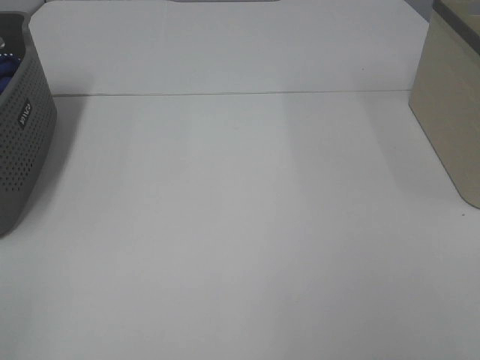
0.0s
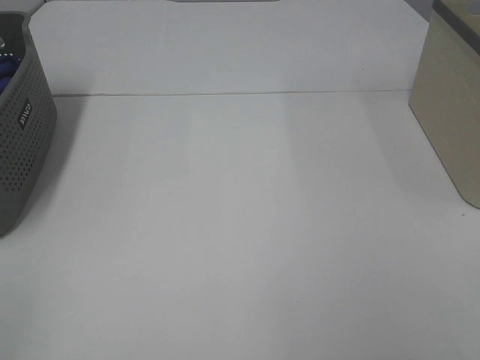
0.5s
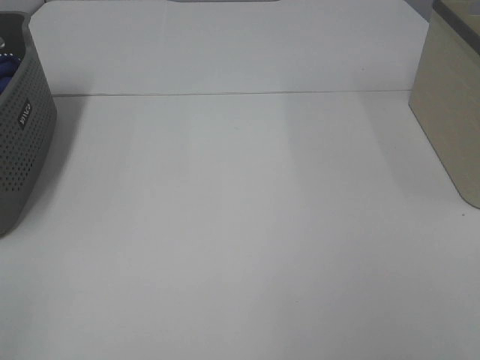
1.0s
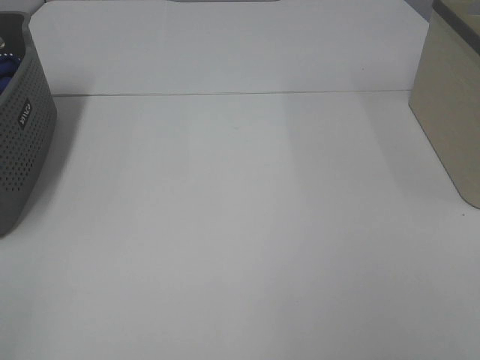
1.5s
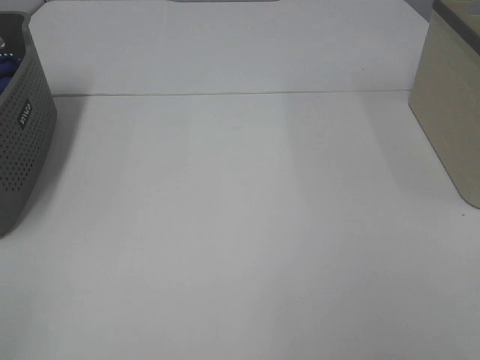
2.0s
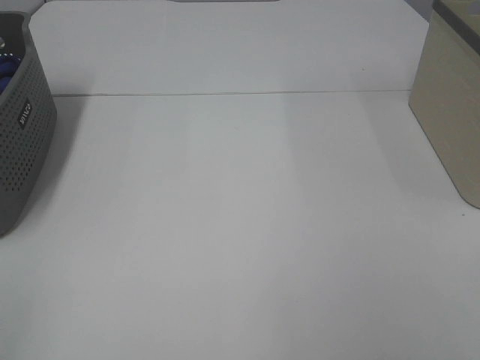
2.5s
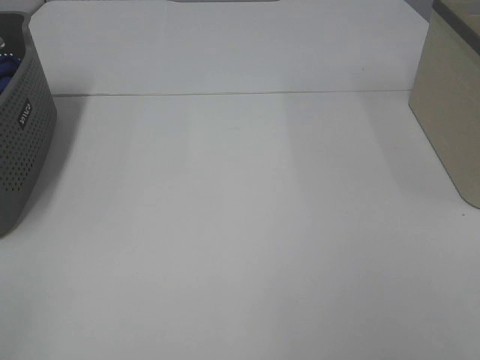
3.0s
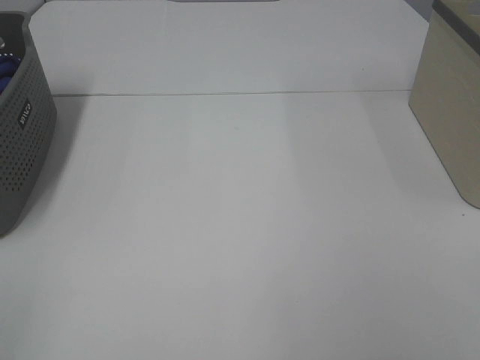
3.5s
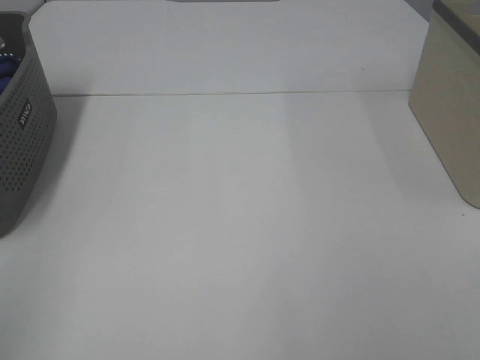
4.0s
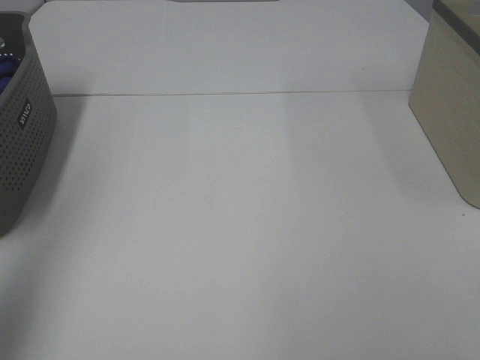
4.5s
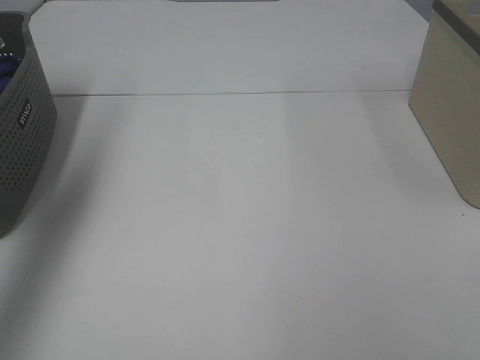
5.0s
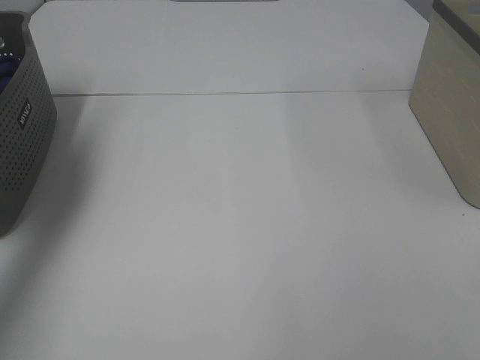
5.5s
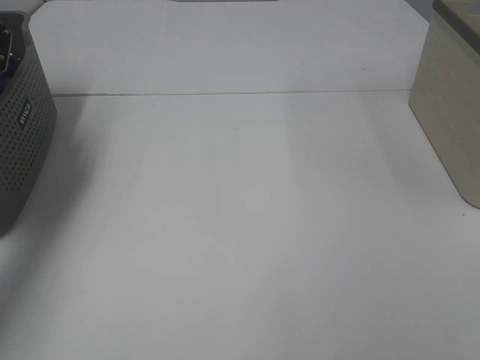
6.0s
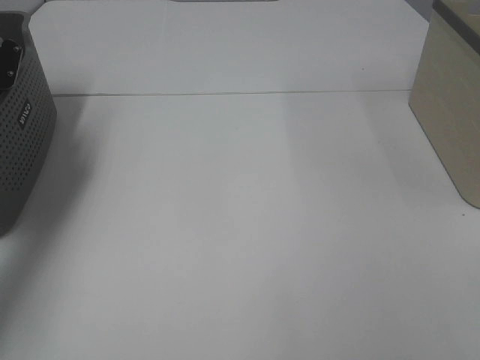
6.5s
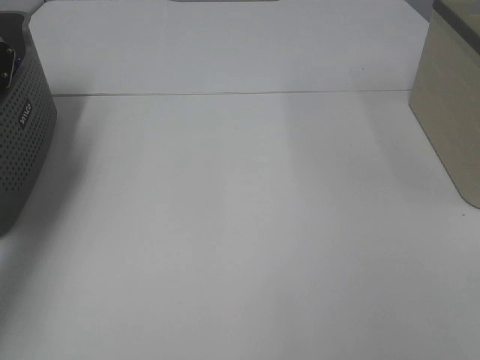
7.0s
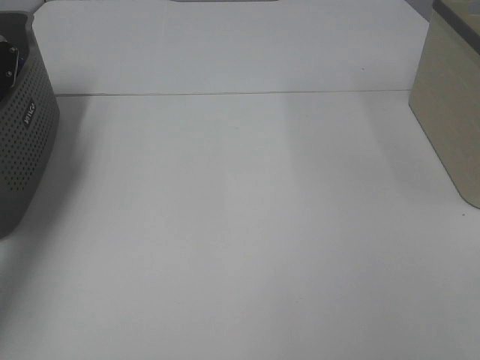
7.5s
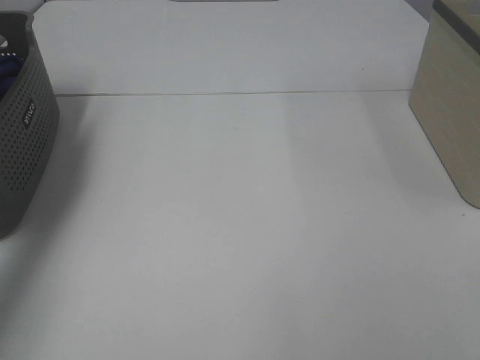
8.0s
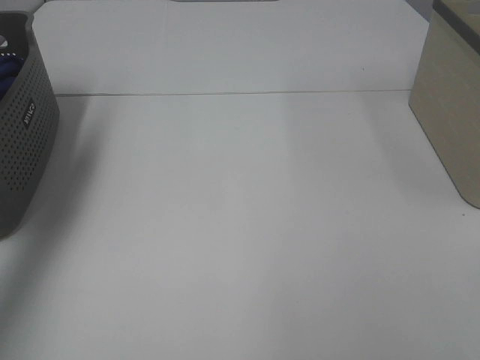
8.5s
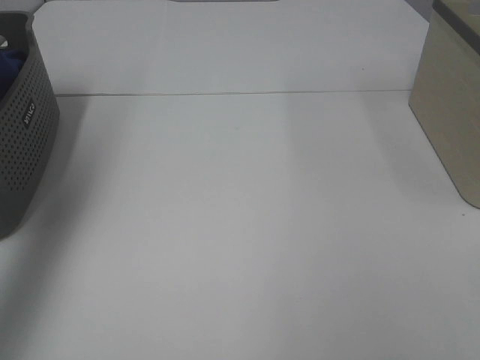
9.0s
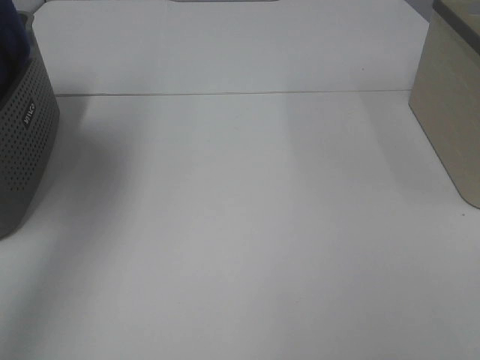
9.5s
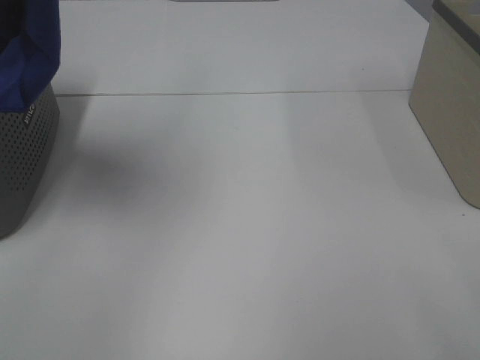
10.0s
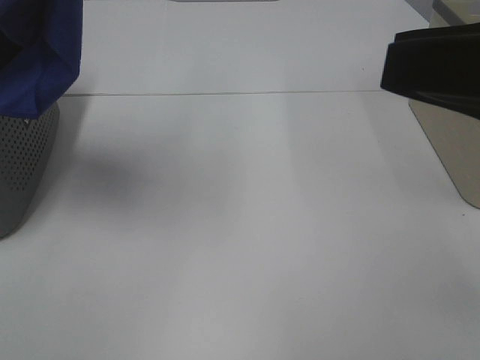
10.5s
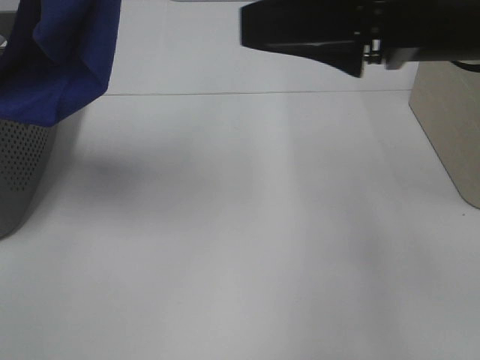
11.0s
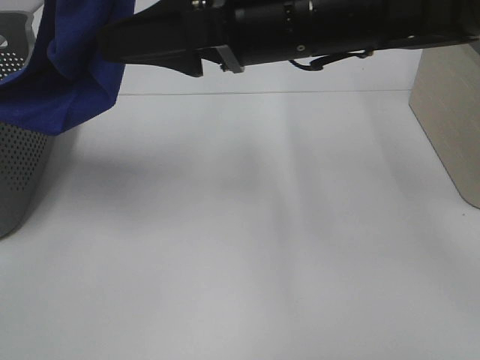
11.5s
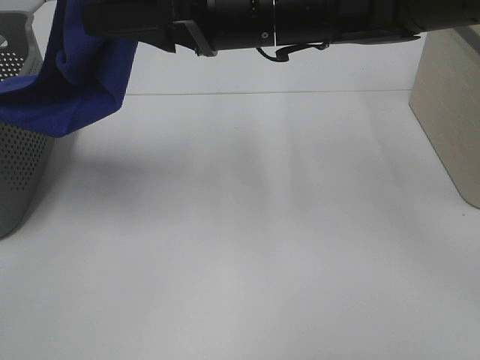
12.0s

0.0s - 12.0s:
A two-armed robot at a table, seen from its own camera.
Task of the whole recording: Remove the towel and place it.
0.0s - 2.0s: The two grippers keep their place.
4.0s - 6.0s: The left gripper is displaced forward by roughly 40 cm.
8.0s - 10.0s: The right gripper heads forward, covering approximately 5 cm. The left gripper shifts roughly 35 cm upward, backward and to the right.
10.0s - 12.0s: The right gripper goes roughly 35 cm forward and to the left, while the left gripper goes roughly 10 cm to the right, downward and forward.

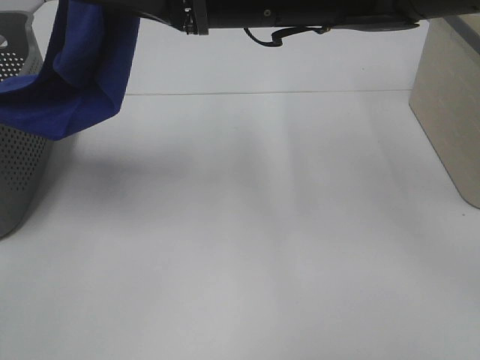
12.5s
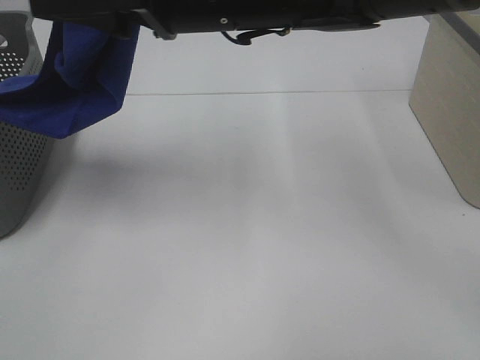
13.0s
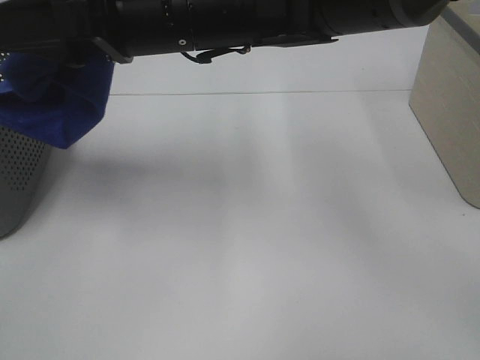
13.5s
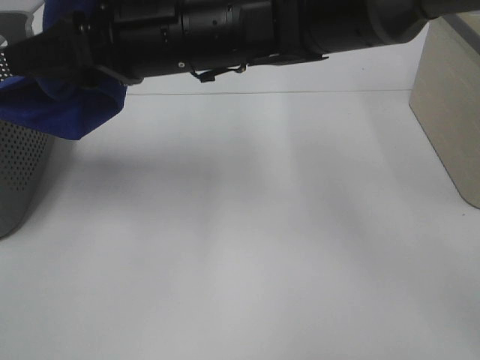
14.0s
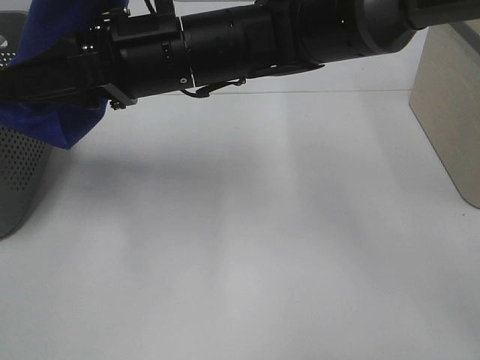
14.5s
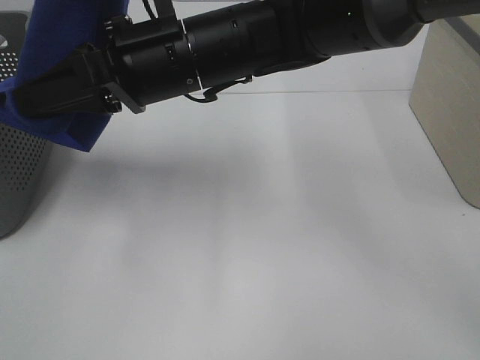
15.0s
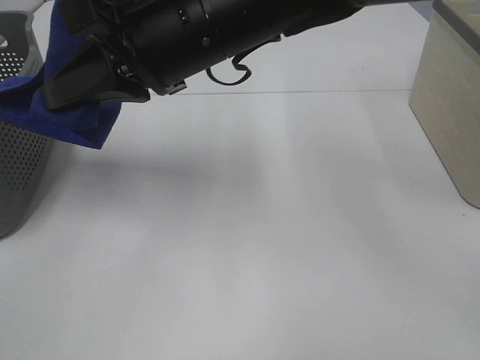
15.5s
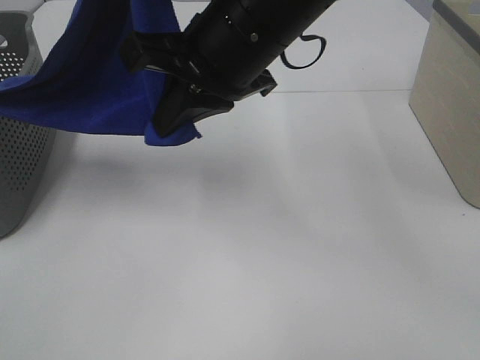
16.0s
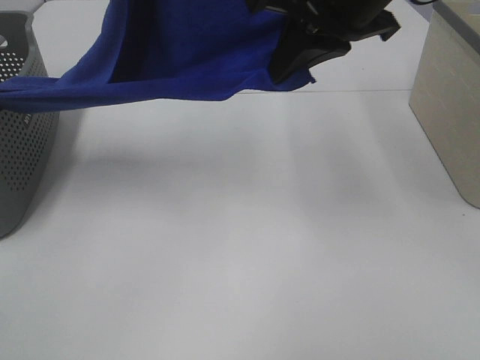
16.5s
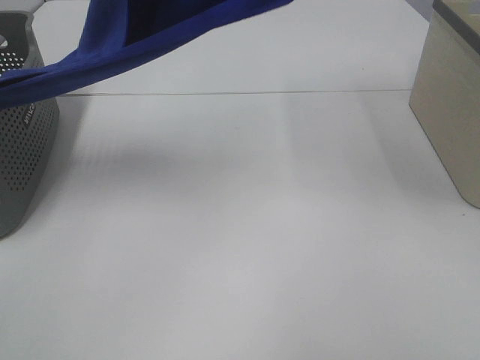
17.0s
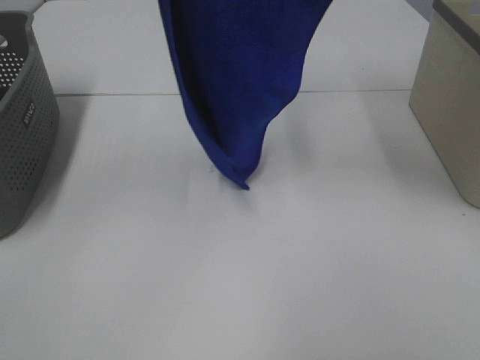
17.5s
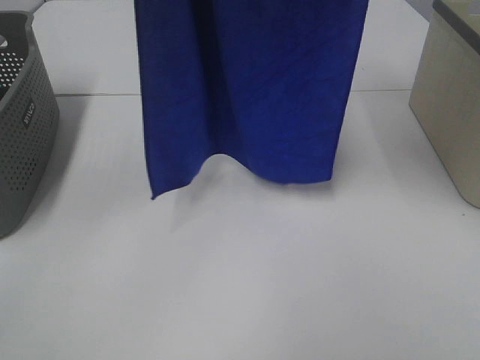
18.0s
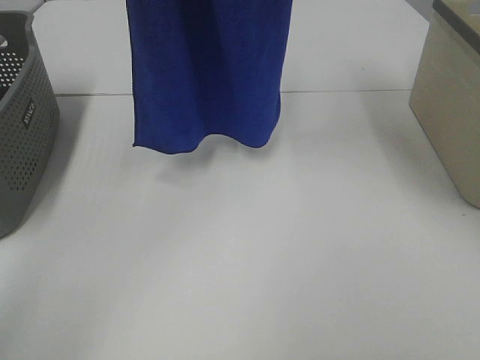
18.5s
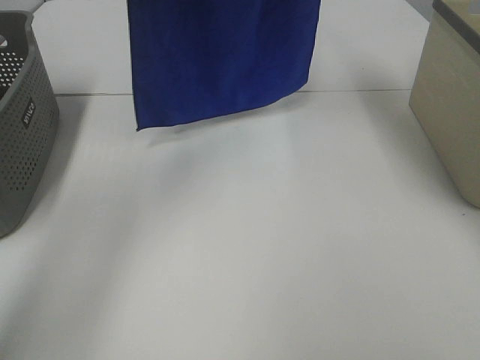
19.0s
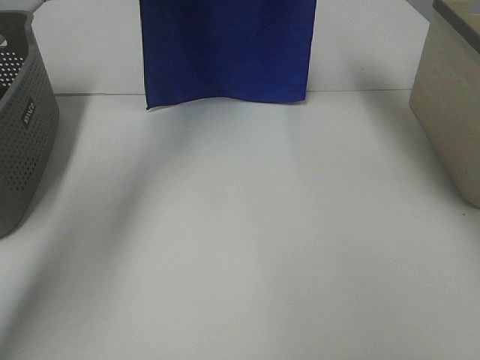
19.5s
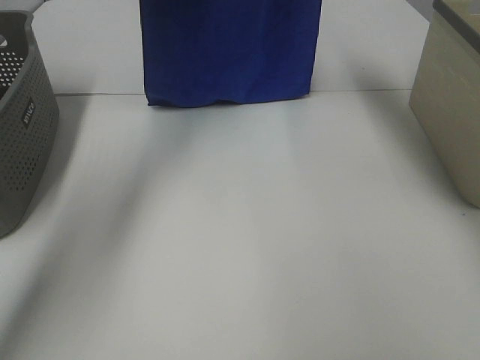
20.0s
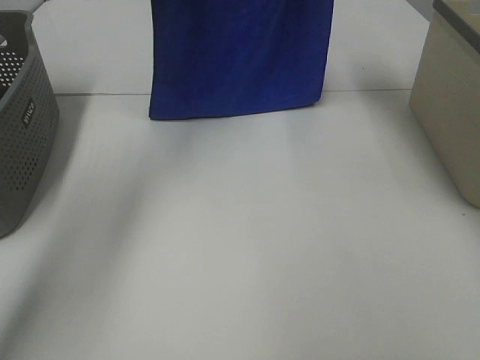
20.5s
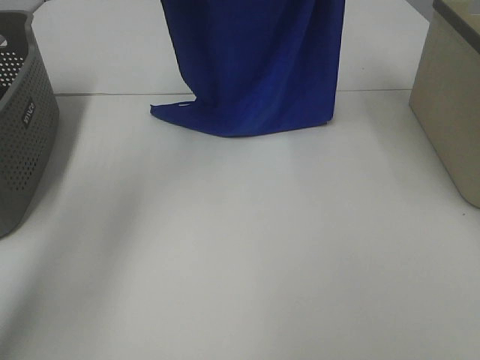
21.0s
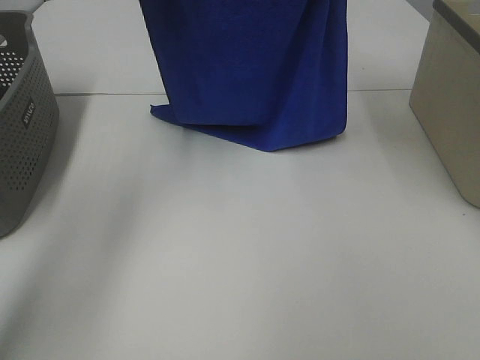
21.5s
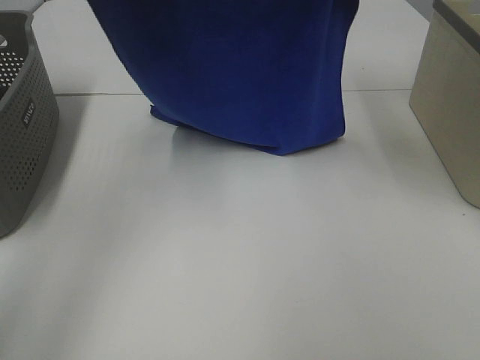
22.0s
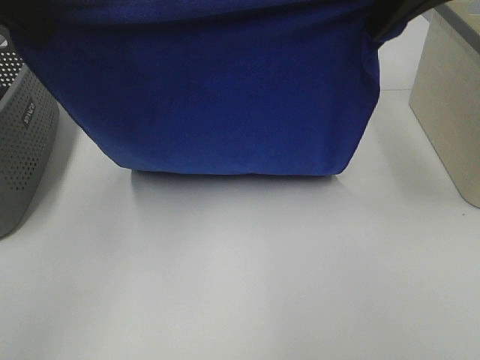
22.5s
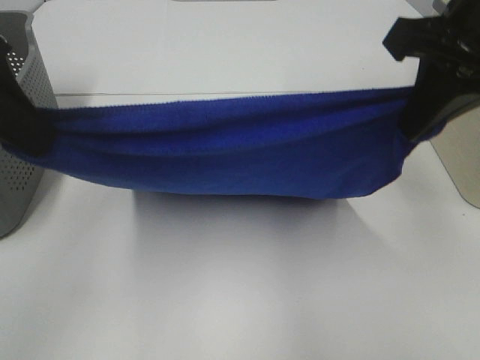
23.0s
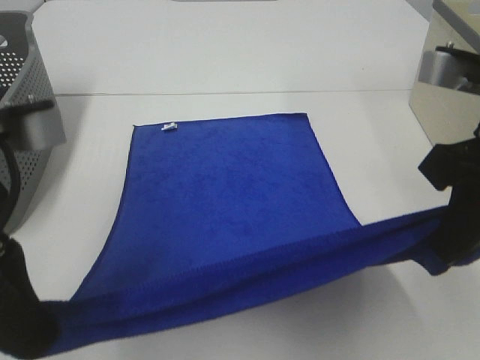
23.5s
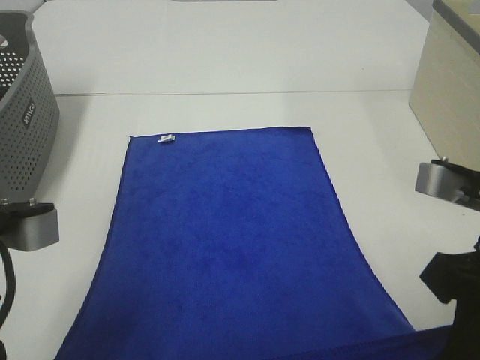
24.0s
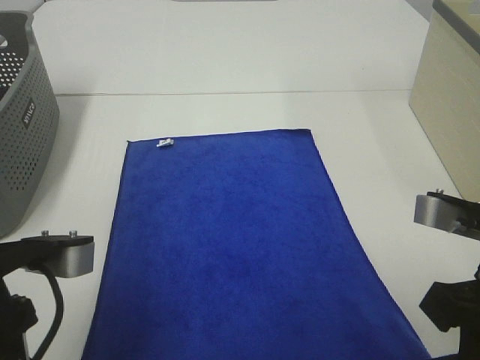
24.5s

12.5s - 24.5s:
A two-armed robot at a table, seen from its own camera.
Task of the whole recording: Remove the towel and place it.
Step, 12.5s - 14.5s: Right hand: grab a corner of the blue towel and straighten it.
Step, 15.0s - 21.0s: Left hand: spread the blue towel flat on the table.
Step, 15.0s - 21.0s: Right hand: spread the blue towel flat on the table.
12.5s - 14.5s: The right gripper moves to the left, some 5 cm, and closes up.
14.5s - 16.5s: The right gripper travels to the right and upward by about 15 cm, and closes up.
16.5s - 18.5s: The left gripper moves forward, some 10 cm. The right gripper goes some 20 cm upward and forward.
18.5s - 20.5s: Both grippers travel together forward and downward, some 10 cm.
20.5s - 22.5s: The right gripper goes roughly 20 cm backward and downward. Meanwhile the left gripper is displaced backward by some 25 cm.
22.5s - 24.5s: The left gripper heads downward and backward, covering some 25 cm, while the right gripper moves backward and downward, approximately 25 cm.

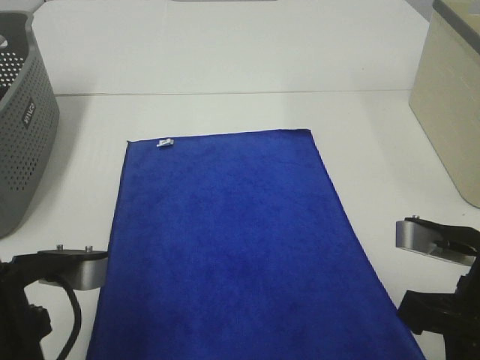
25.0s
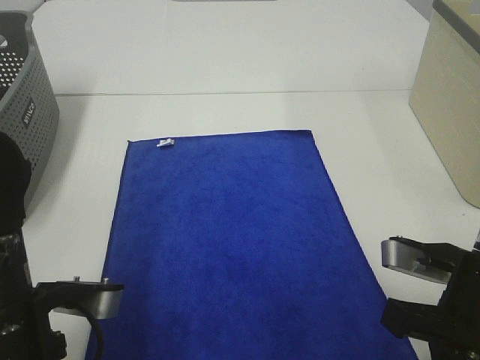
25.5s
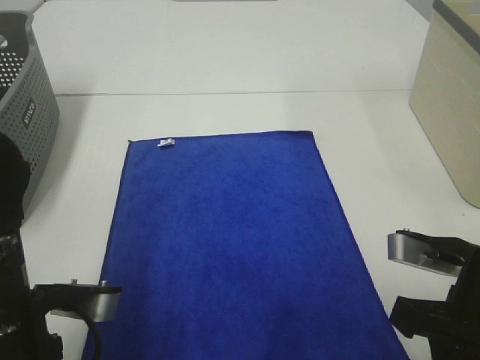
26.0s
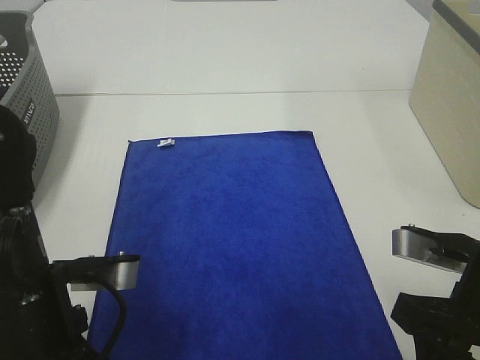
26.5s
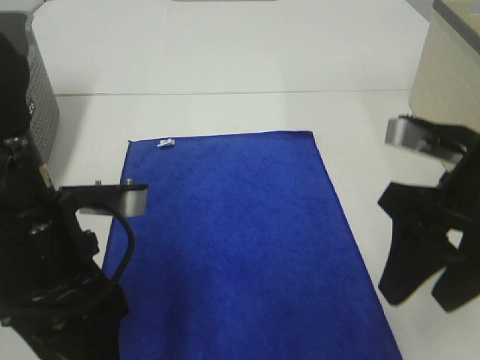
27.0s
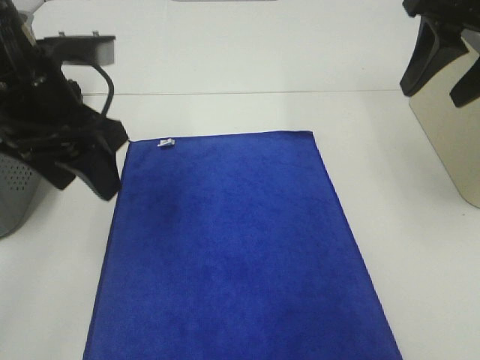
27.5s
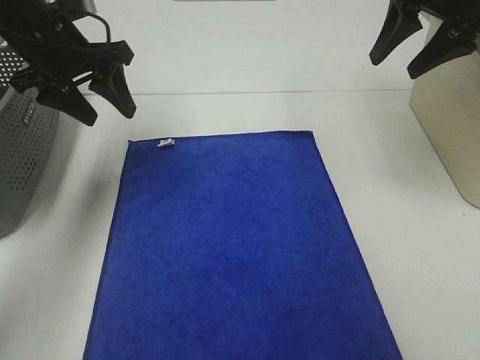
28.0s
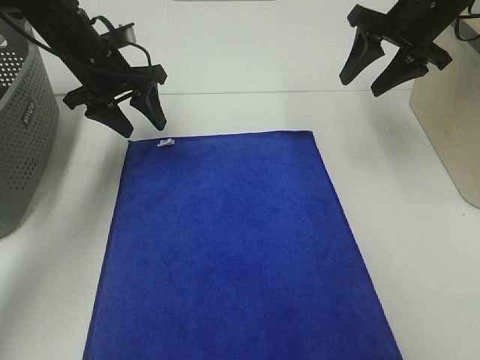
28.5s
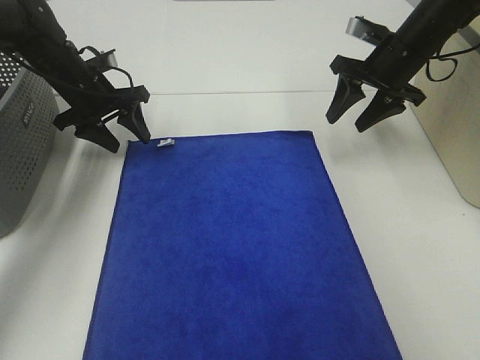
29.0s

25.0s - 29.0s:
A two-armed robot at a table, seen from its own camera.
Task of the whole recording: Remove the towel and place it.
Step, 25.0s - 29.0s: Left hand:adjust the blue towel.
Step, 25.0s - 29.0s: Right hand:adjust the blue towel.
25.0s - 27.0s: The right gripper goes roughly 5 cm upward, and opens. The left gripper shifts by about 5 cm, and opens up.
27.0s - 29.0s: The two grippers go about 30 cm forward.
